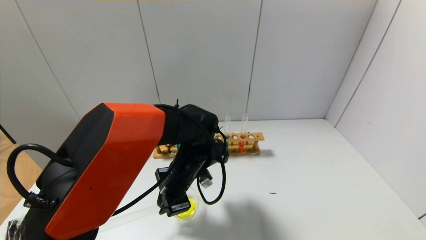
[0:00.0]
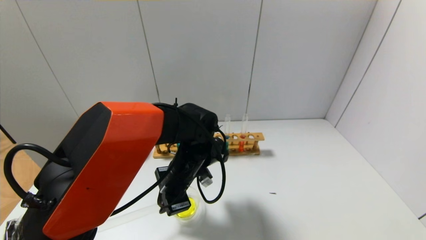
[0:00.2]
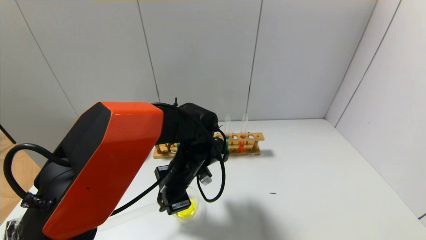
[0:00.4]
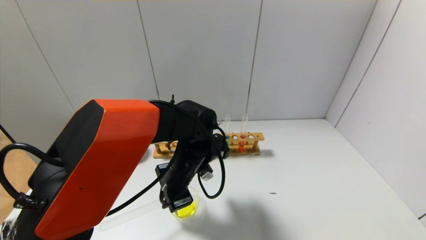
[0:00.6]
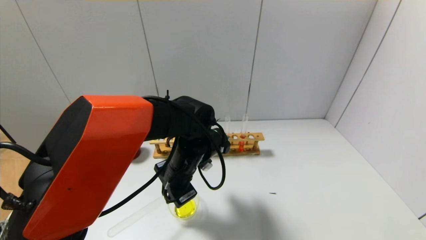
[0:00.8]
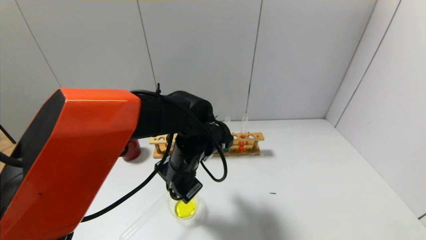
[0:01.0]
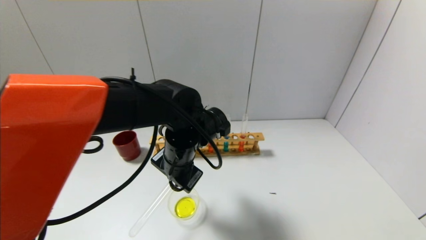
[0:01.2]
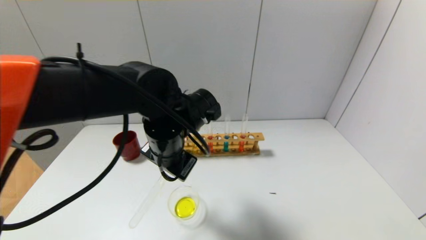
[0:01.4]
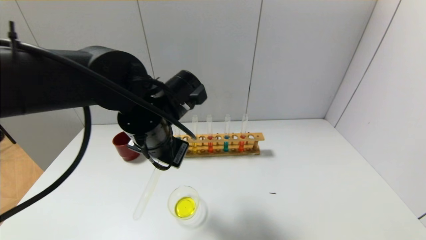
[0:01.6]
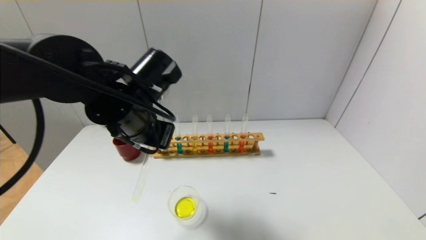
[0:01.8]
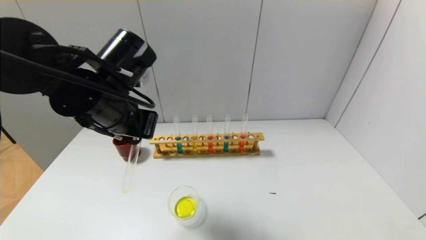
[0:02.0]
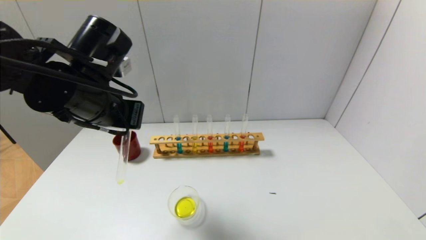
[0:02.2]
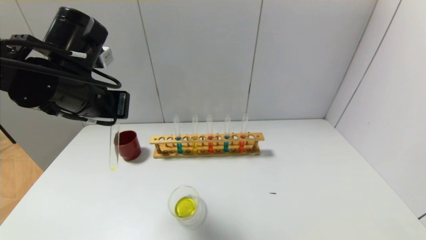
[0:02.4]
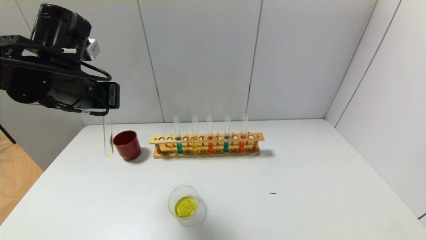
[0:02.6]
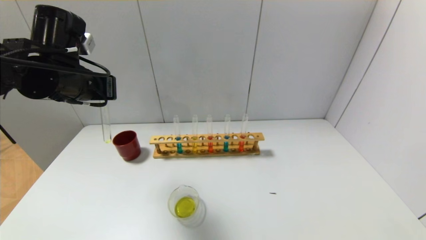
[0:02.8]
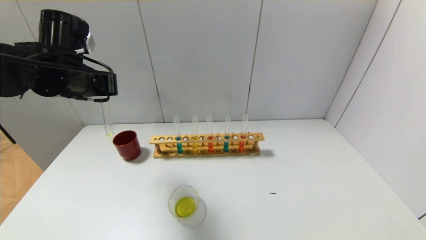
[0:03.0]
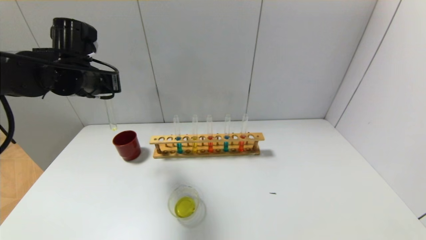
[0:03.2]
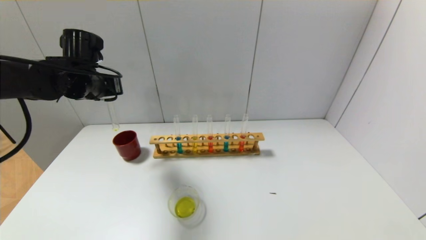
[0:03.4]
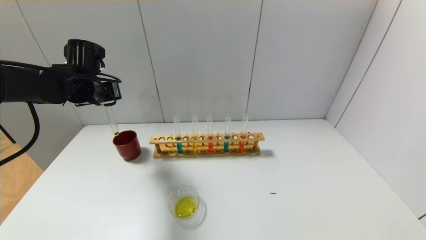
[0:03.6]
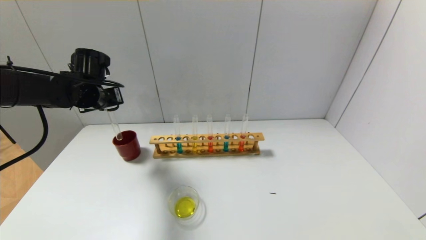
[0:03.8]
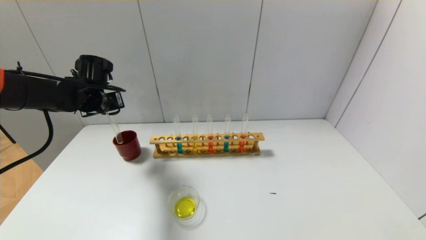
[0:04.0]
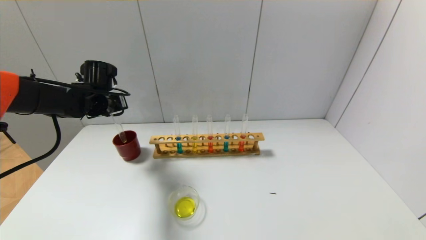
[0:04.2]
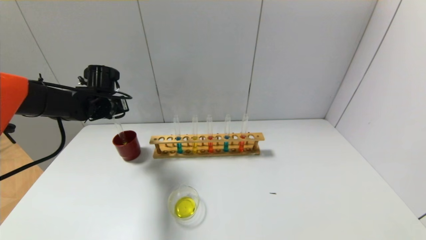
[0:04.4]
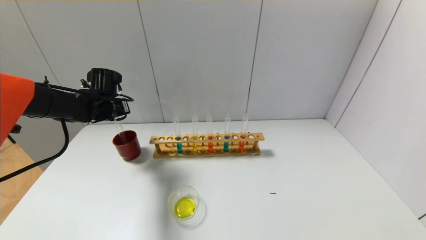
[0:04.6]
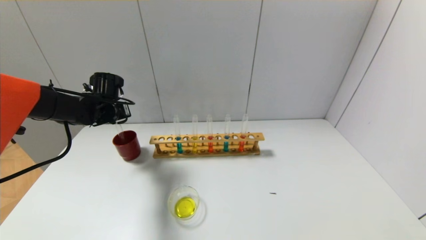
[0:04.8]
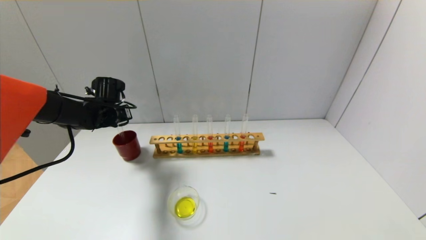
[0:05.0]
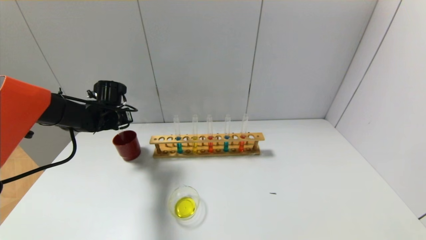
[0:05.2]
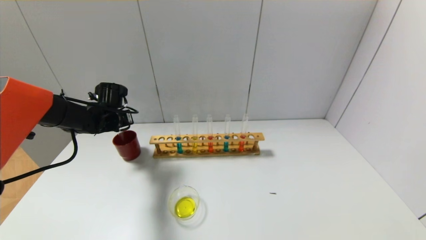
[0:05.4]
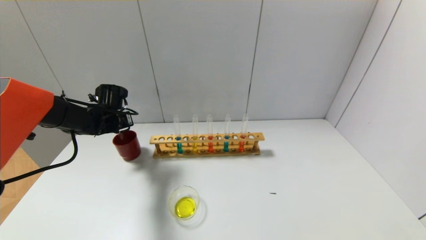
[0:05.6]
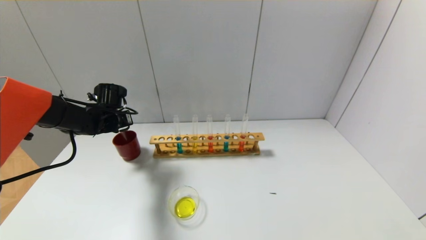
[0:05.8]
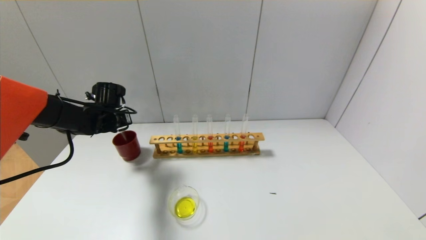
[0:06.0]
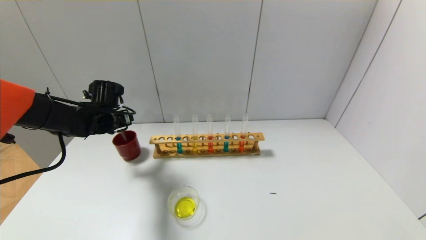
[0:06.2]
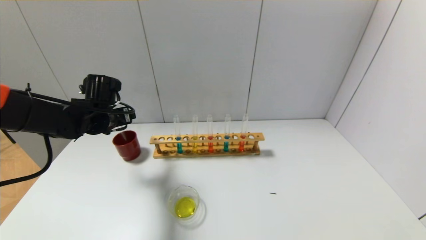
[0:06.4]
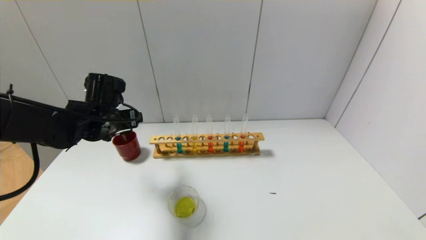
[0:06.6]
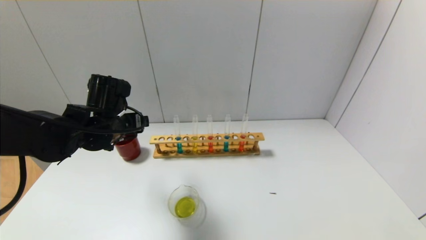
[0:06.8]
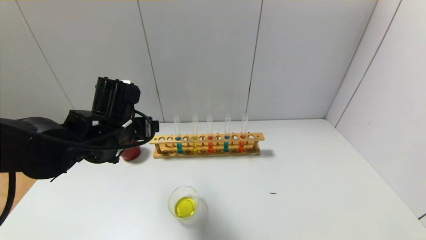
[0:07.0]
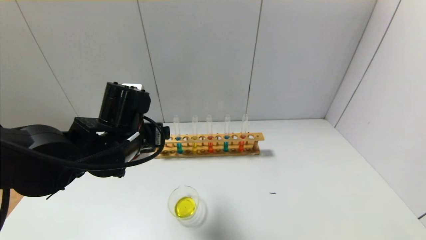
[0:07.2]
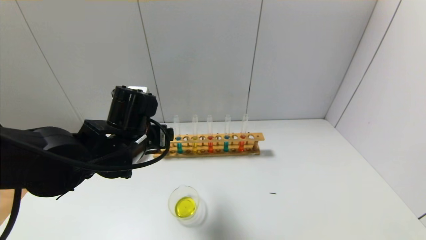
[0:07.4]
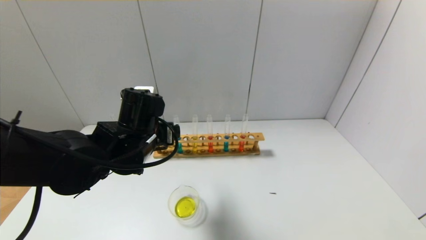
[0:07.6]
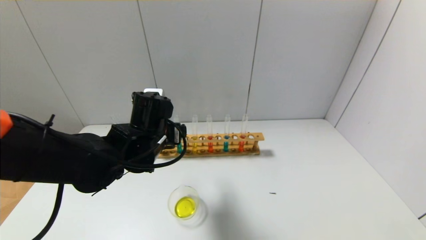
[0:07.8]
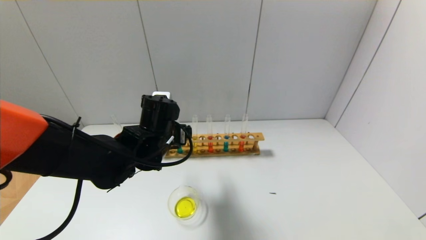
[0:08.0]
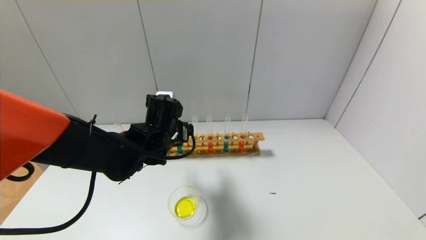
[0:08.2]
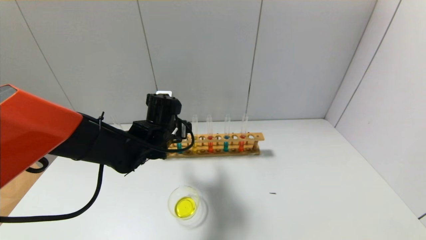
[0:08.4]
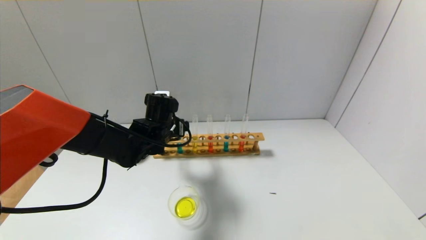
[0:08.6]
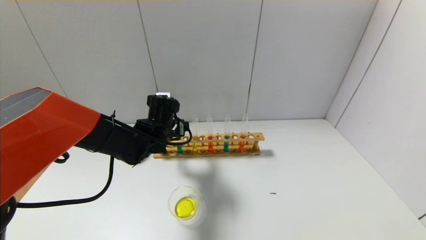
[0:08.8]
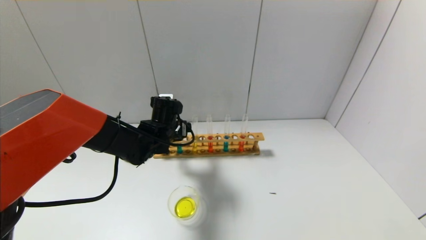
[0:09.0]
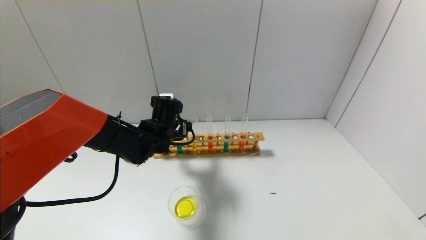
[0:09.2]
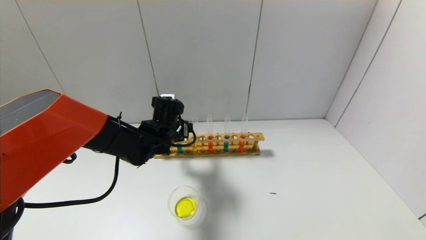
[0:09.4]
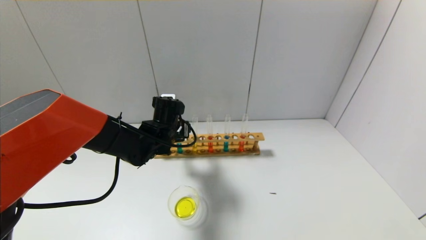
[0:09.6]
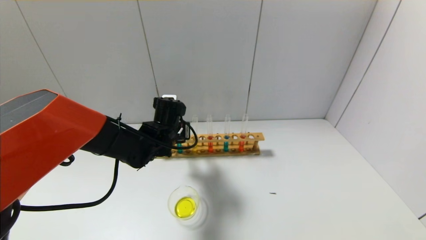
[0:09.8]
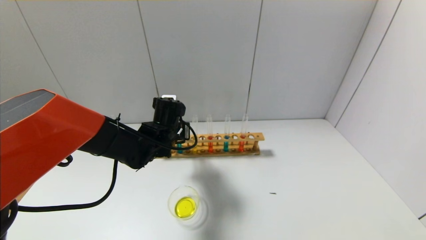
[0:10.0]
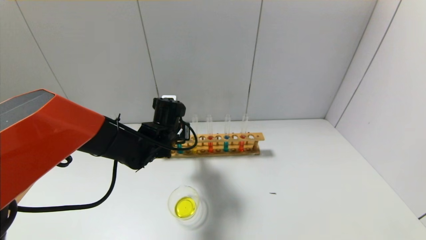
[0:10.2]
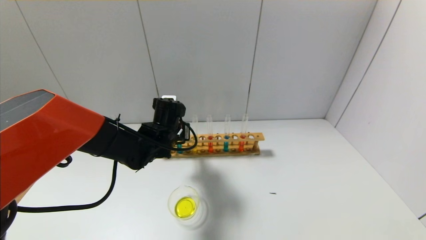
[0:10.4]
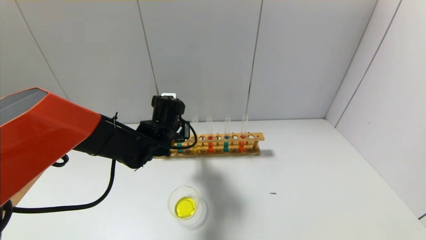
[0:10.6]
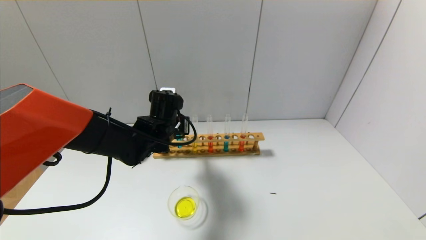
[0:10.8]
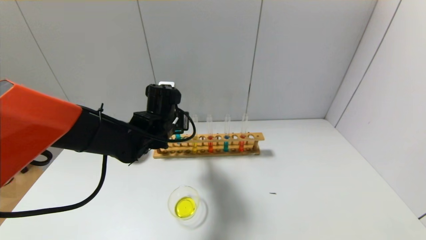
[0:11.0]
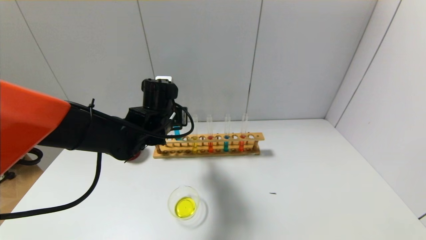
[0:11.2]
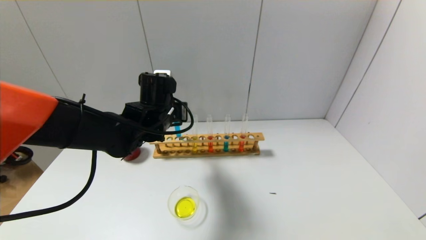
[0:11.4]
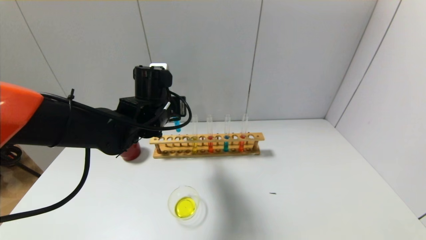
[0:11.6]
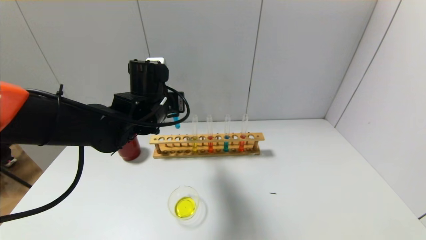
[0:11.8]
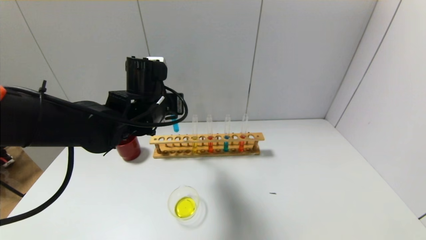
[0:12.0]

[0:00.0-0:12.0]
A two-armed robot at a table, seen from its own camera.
Step, 0:01.2 to 0:05.8: Place the test tube into the brown cup with the left gripper.
Step, 0:06.0 to 0:10.0: Grasp the blue reagent with the left gripper.
0:00.0 to 0:01.6: The left gripper moves upward, roughly 10 cm.
0:01.6 to 0:03.0: The left gripper moves to the left and forward, approximately 15 cm.
0:03.0 to 0:04.4: The left gripper shifts approximately 15 cm downward and forward.
0:04.4 to 0:06.0: The left gripper opens.
0:06.0 to 0:07.6: The left gripper goes roughly 20 cm to the right and backward.
0:07.6 to 0:09.0: The left gripper goes approximately 10 cm forward and downward.
0:09.0 to 0:10.4: The left gripper closes up.
0:10.4 to 0:12.0: The left gripper heads upward, covering about 10 cm.

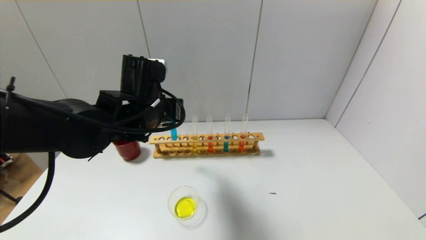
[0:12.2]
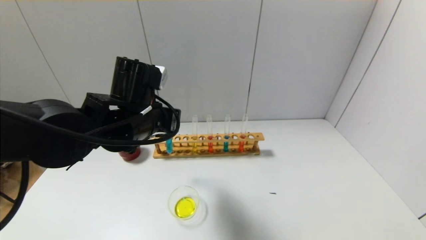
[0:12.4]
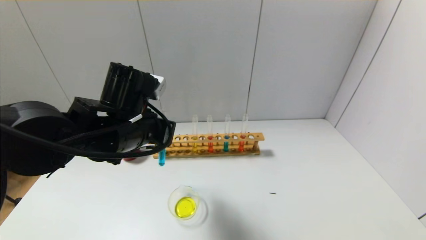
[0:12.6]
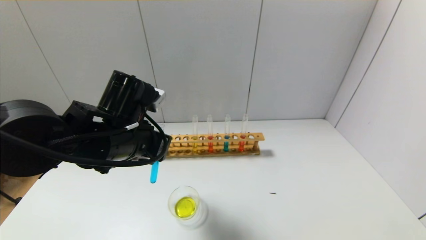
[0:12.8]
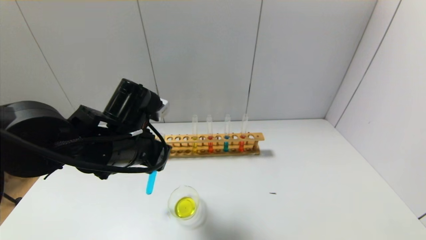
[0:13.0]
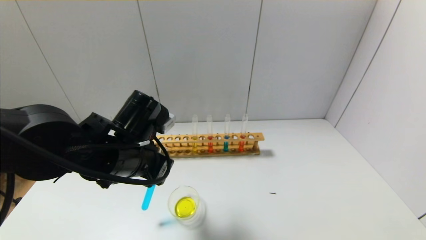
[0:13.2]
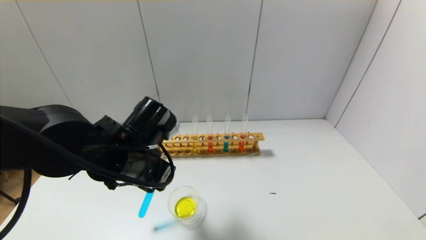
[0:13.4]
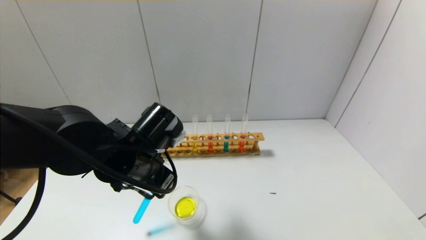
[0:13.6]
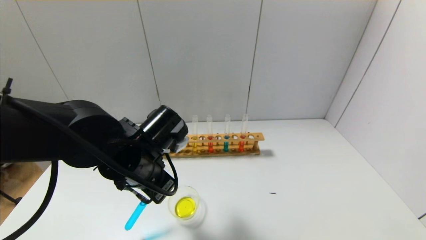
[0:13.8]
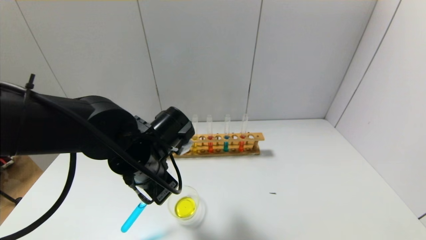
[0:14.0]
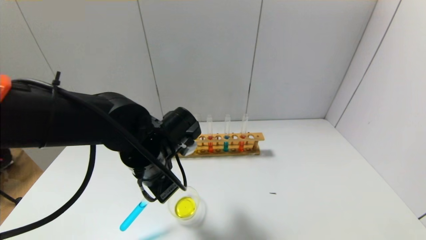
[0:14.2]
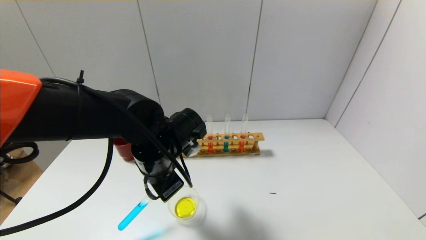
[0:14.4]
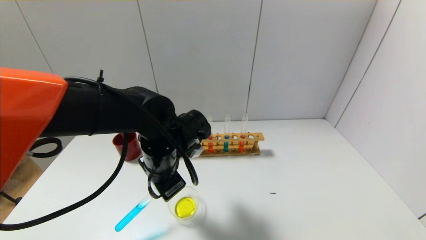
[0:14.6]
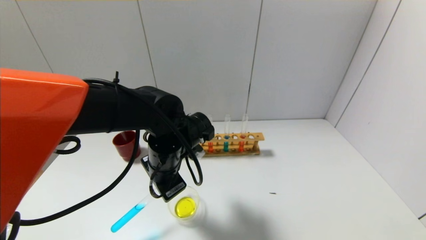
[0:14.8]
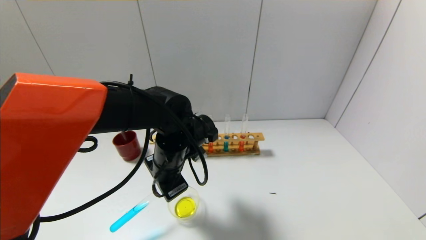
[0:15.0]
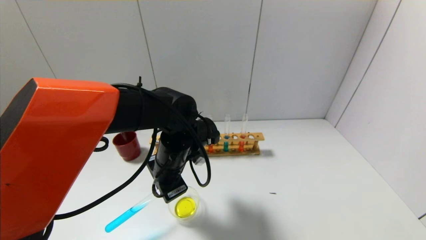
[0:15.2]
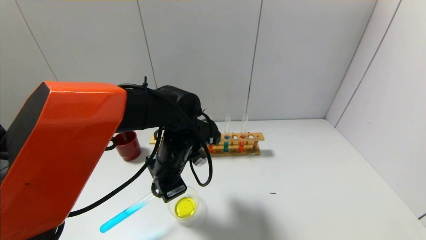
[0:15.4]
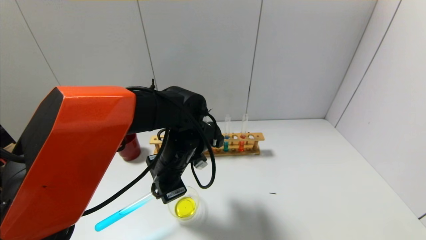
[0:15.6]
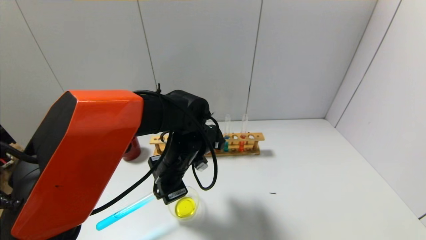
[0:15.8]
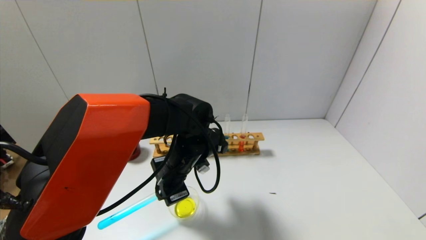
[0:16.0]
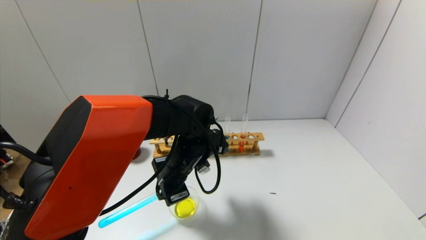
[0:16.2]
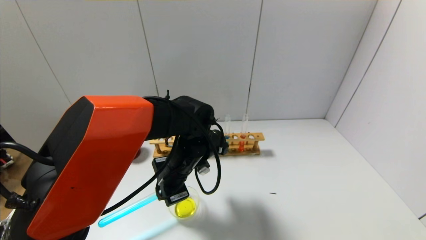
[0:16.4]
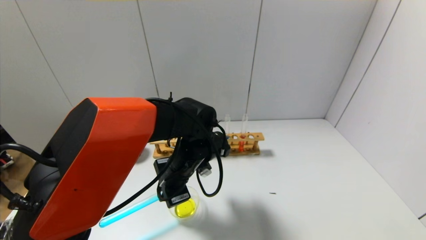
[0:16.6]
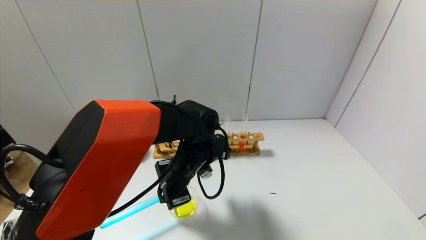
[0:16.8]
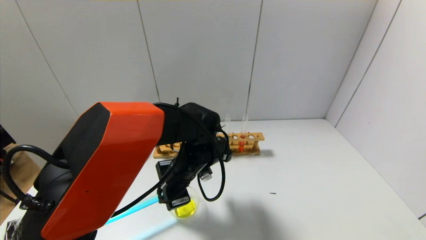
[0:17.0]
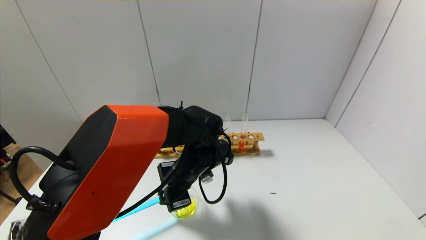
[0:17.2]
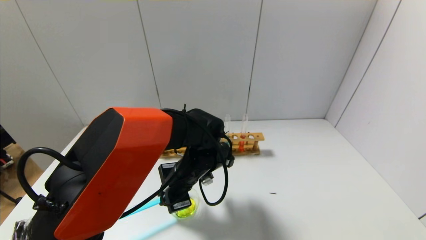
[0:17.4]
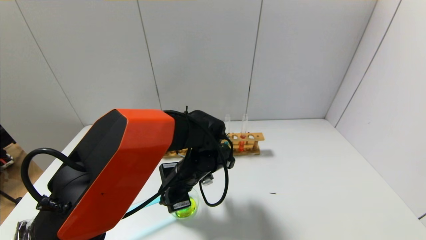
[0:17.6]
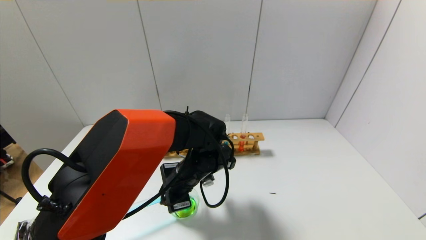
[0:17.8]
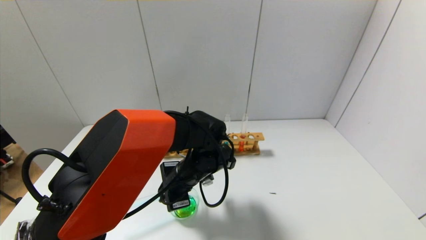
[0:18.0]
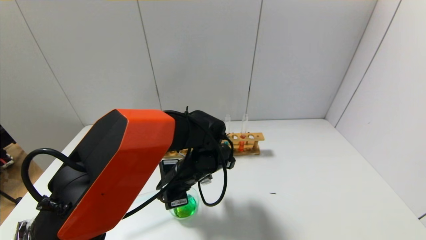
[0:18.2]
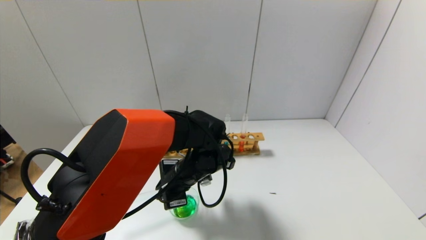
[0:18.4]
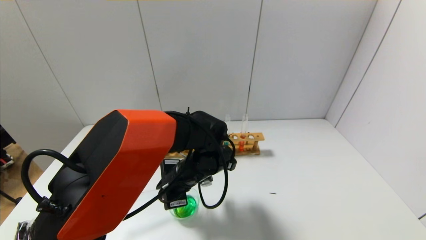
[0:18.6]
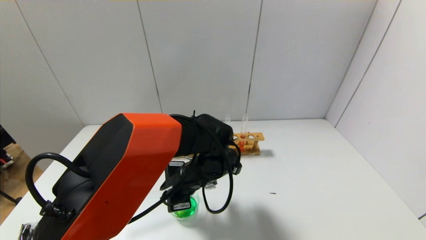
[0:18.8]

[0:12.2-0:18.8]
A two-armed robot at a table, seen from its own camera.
0:12.2 to 0:13.8: The left gripper heads backward and downward, covering roughly 10 cm.
0:13.8 to 0:15.4: The left gripper heads forward, covering about 5 cm.
0:17.2 to 0:18.8: The grippers make only small movements.
